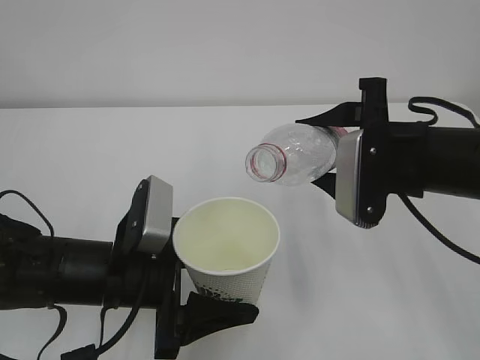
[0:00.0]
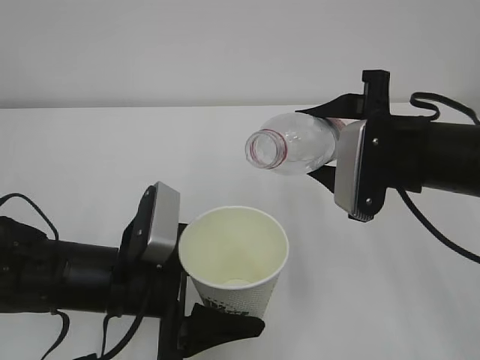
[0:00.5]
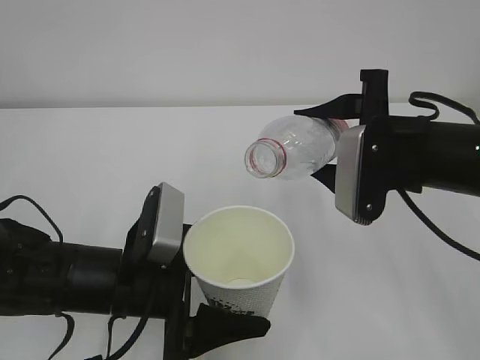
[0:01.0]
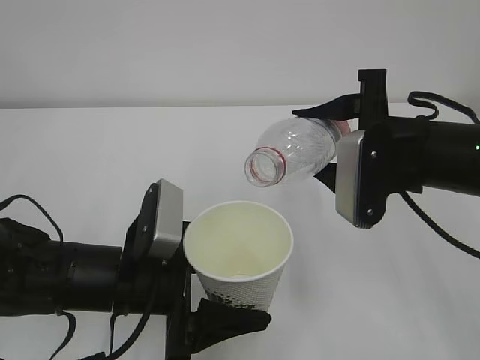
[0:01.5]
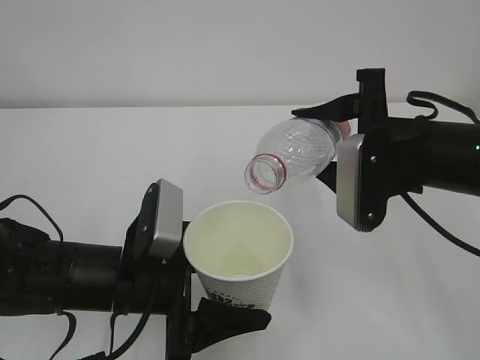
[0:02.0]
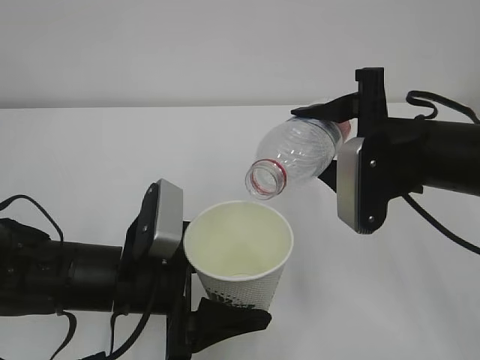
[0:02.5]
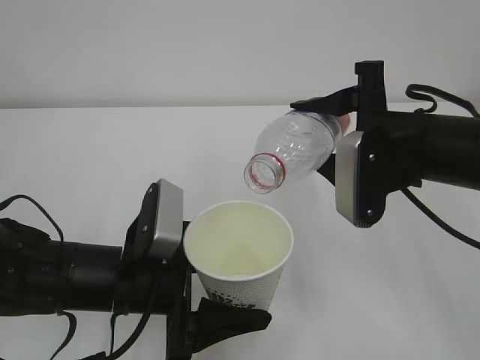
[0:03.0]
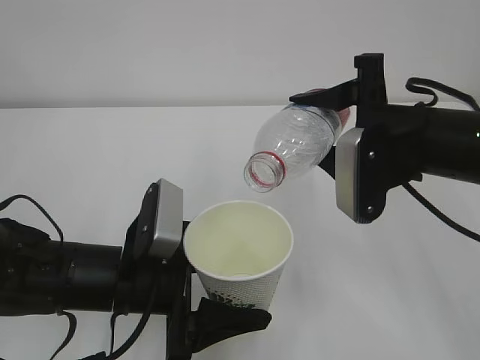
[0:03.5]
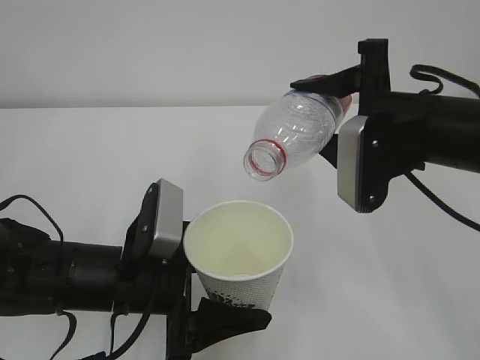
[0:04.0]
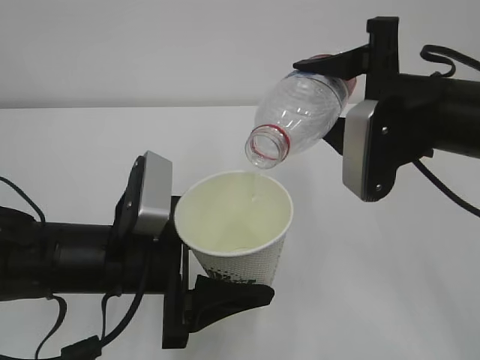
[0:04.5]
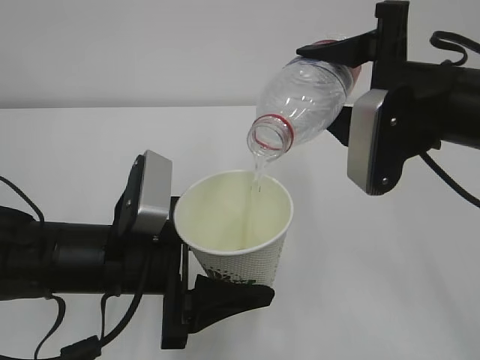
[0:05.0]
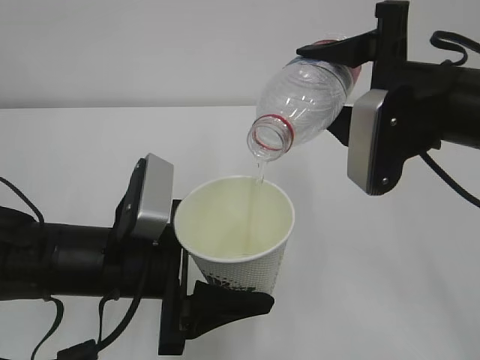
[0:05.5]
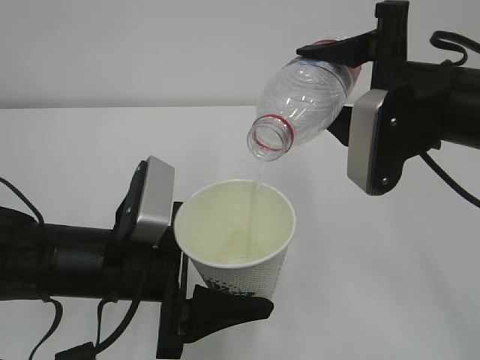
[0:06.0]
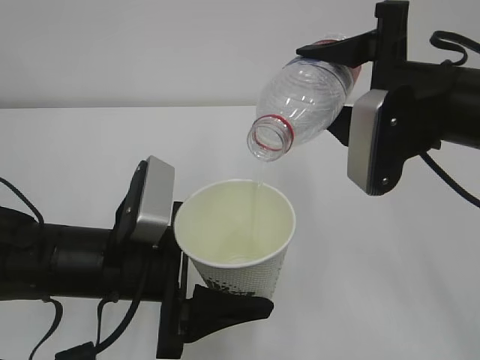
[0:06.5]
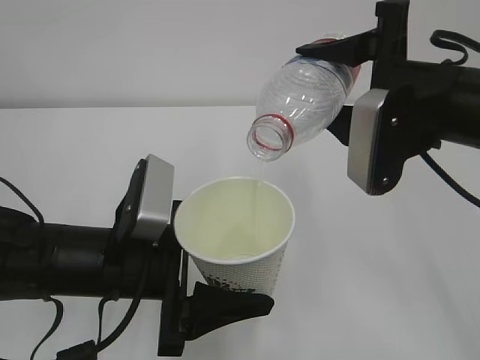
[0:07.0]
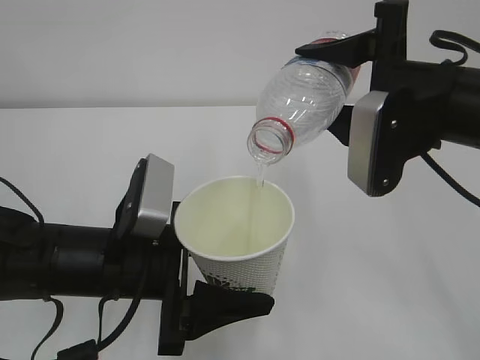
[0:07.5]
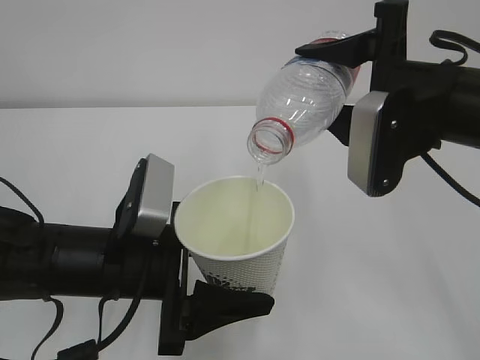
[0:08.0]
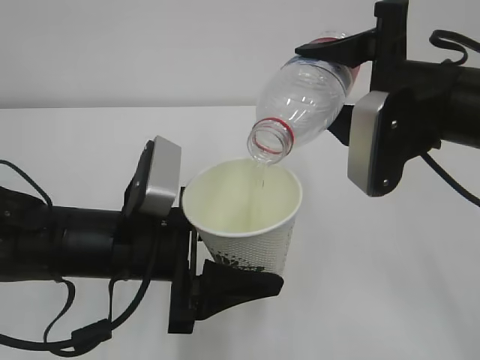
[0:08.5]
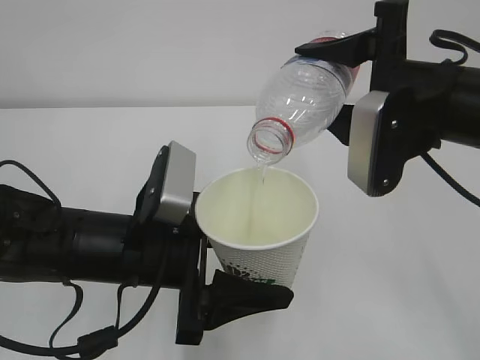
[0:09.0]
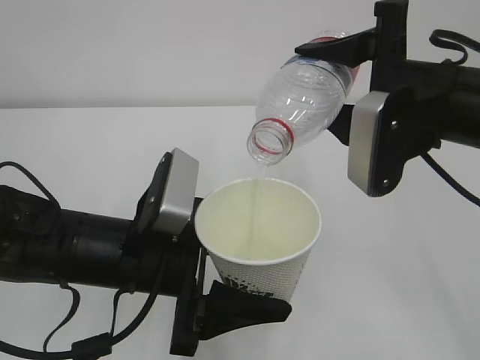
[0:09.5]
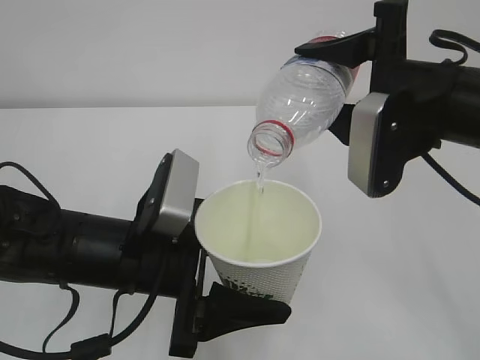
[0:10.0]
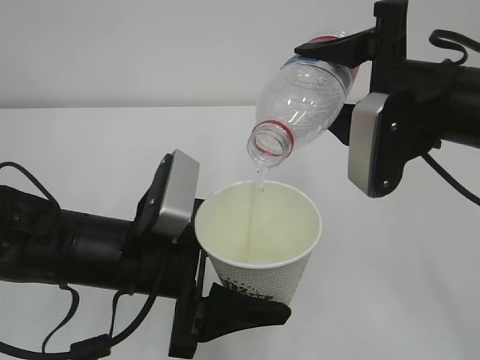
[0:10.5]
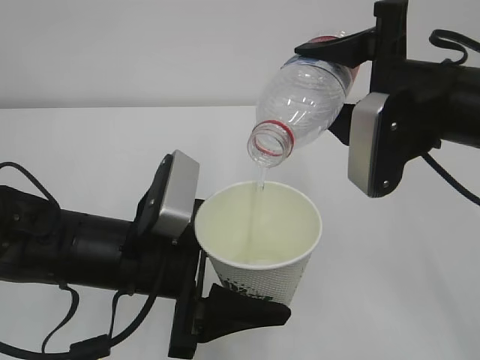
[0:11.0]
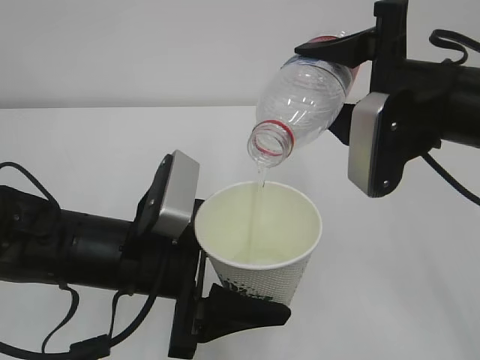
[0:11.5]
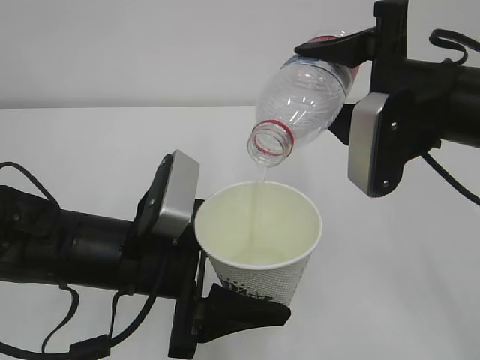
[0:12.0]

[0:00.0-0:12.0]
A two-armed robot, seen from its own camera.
0:00.0 to 0:04.0: The grippers stay close to where they were, moving slightly.
0:06.0 to 0:08.0: Both grippers stay about where they are.
0:08.0 to 0:10.0: The grippers make only small movements.
0:10.0 to 0:12.0: Both grippers stay put.

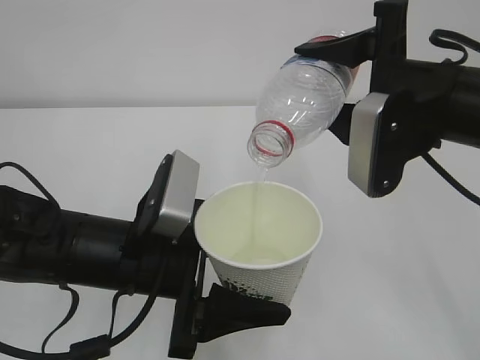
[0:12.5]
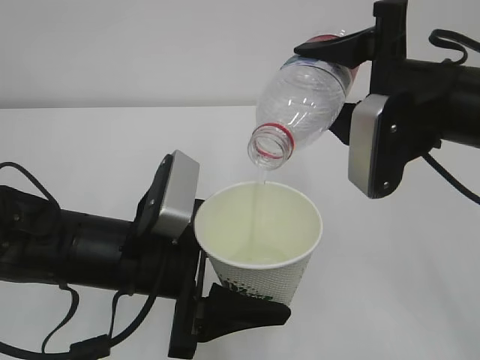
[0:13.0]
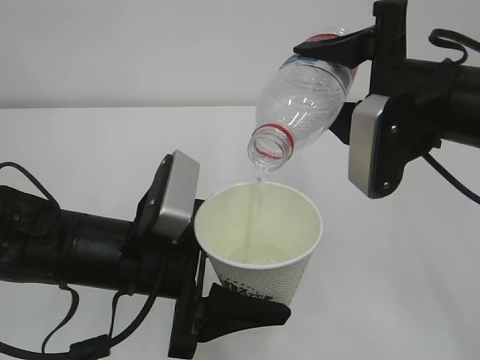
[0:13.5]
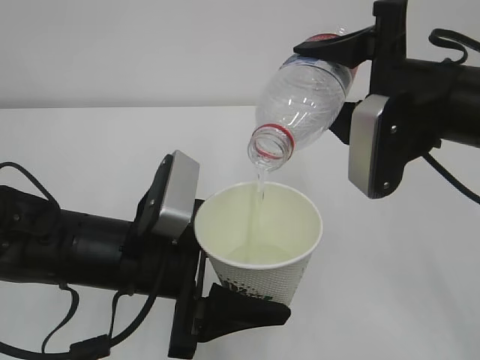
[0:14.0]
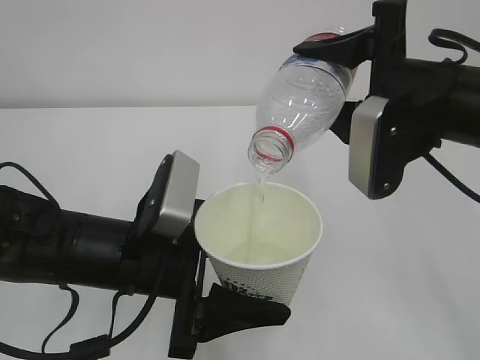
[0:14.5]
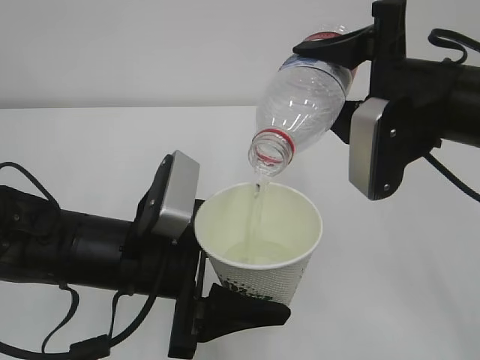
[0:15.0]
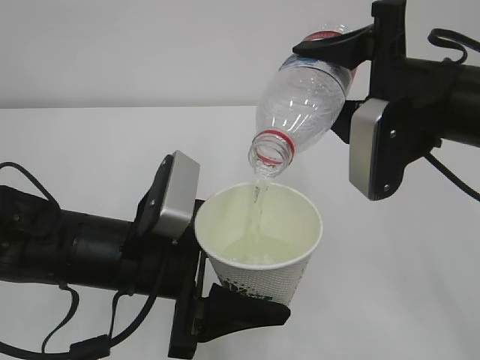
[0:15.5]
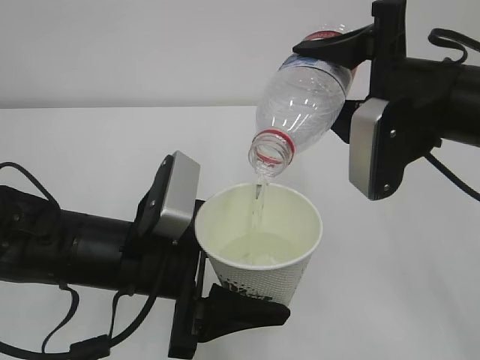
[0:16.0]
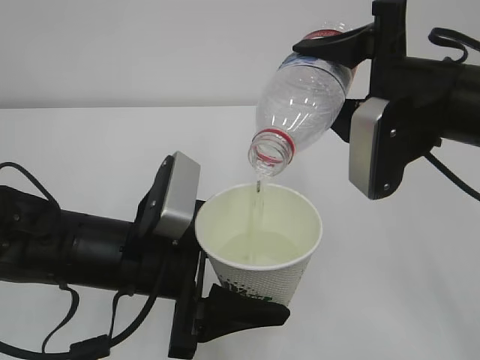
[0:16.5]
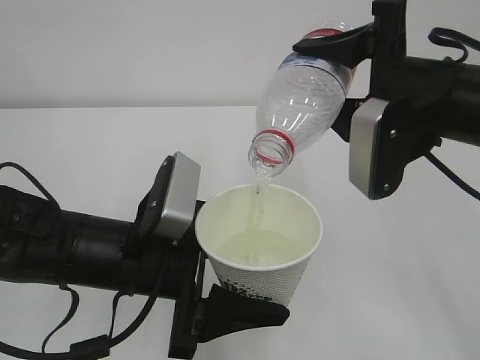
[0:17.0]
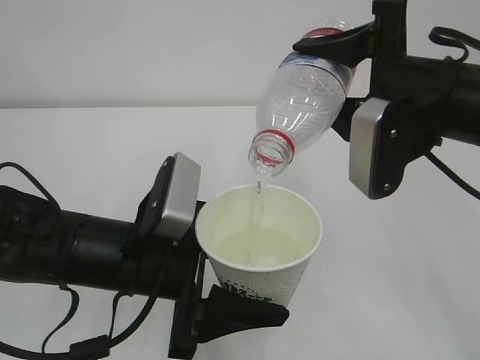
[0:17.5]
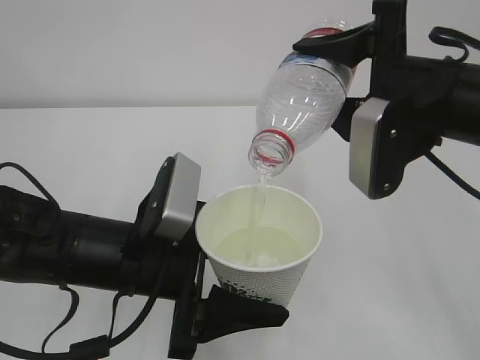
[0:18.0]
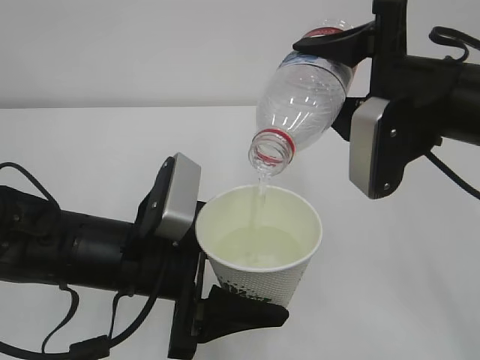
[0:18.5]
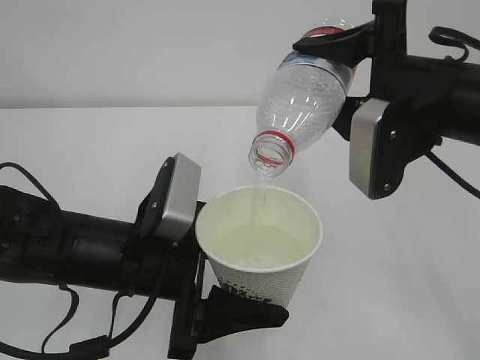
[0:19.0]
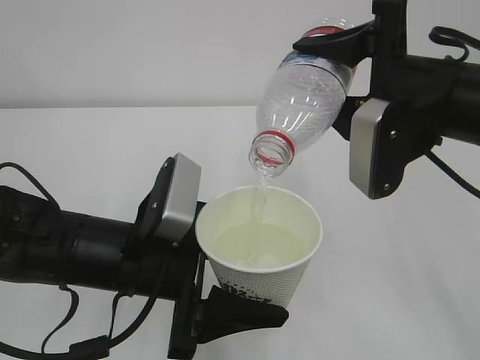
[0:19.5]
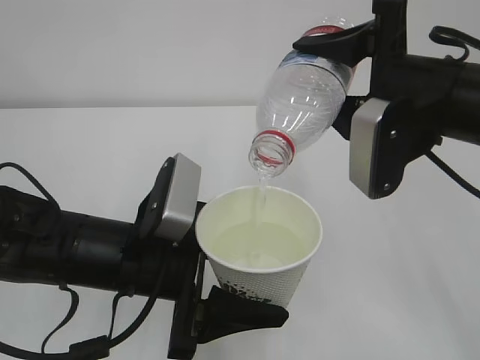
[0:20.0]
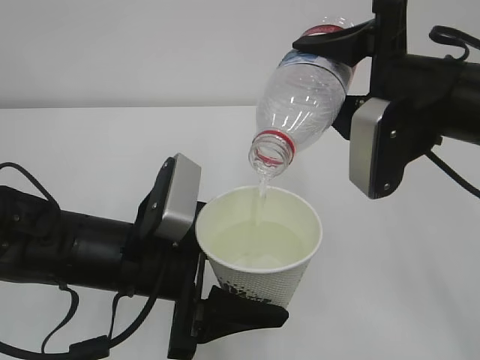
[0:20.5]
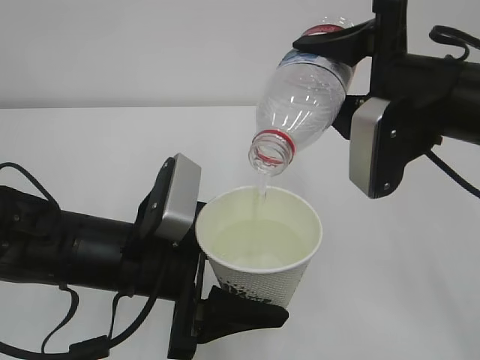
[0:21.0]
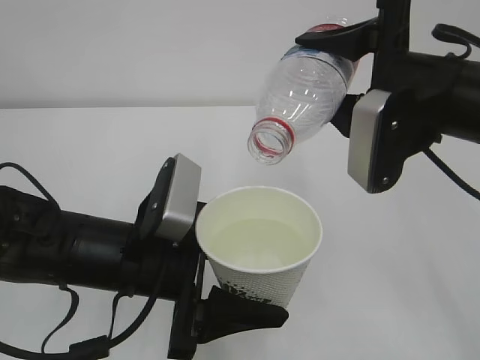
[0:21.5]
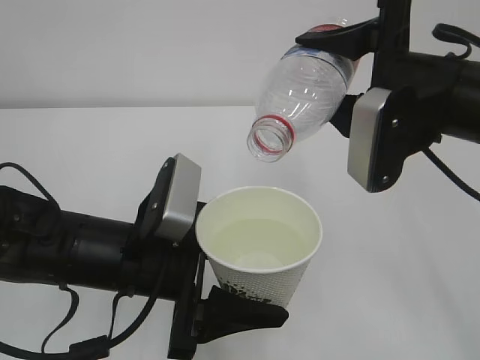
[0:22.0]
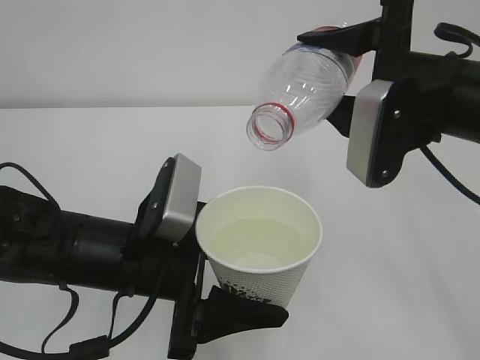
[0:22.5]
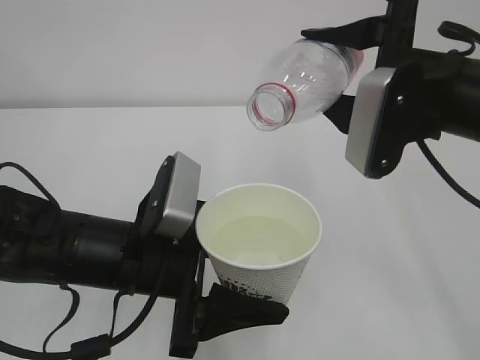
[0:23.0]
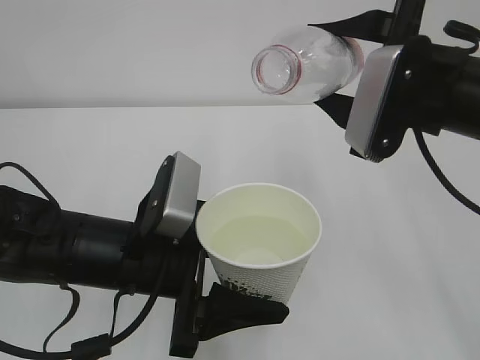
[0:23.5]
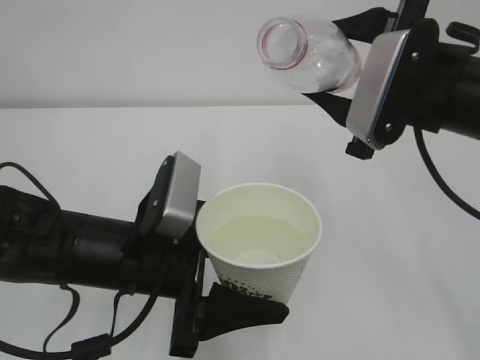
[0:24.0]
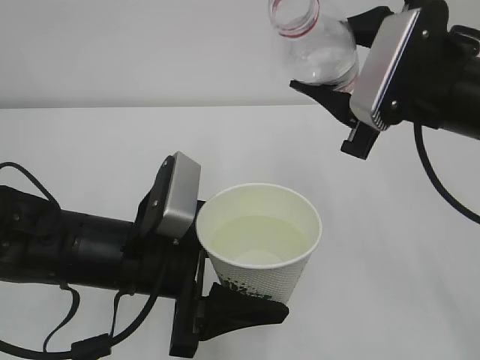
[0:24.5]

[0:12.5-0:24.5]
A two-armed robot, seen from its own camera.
0:12.5 to 0:16.5: Both grippers stay put.
0:16.5 to 0:20.5: Neither gripper changes place.
0:20.5 to 0:22.5: The grippers move only a little.

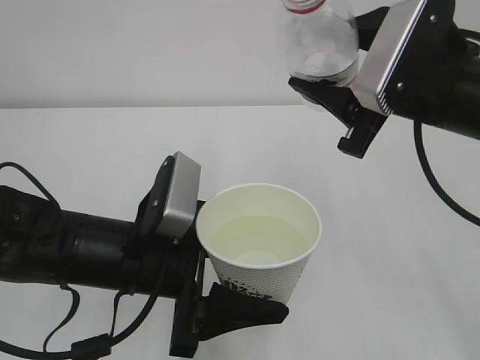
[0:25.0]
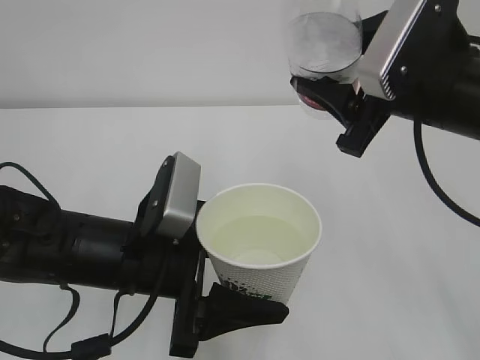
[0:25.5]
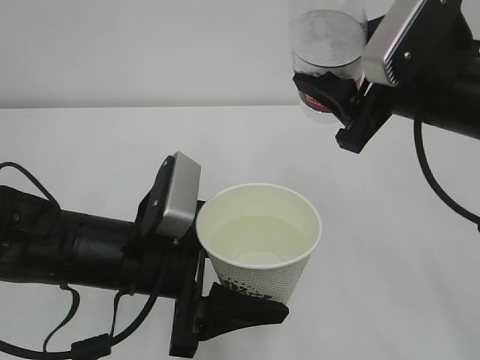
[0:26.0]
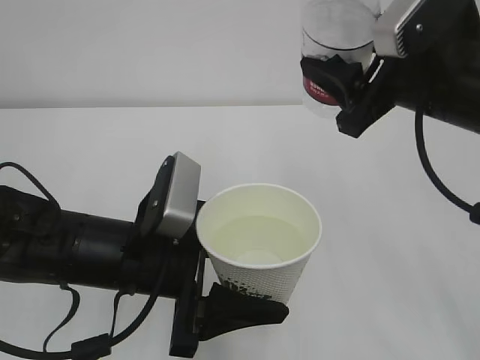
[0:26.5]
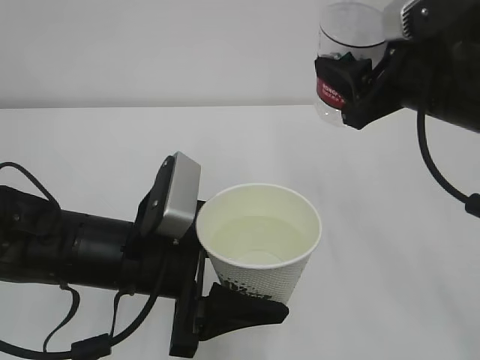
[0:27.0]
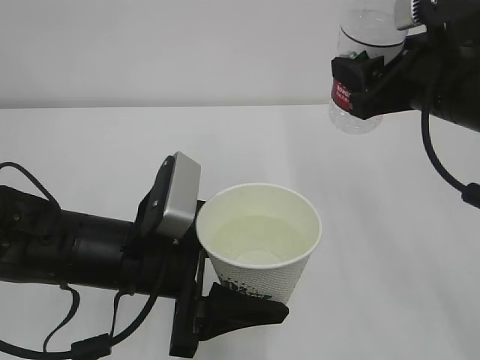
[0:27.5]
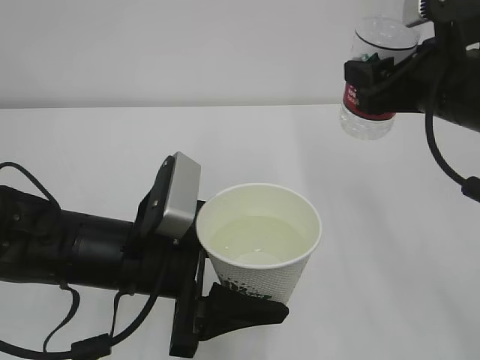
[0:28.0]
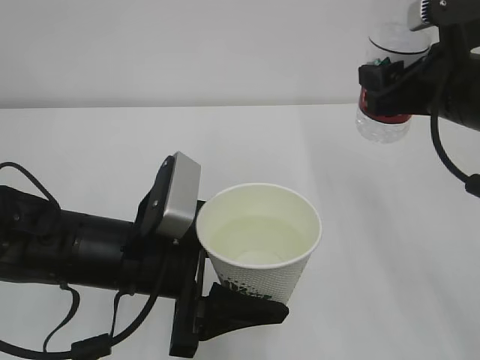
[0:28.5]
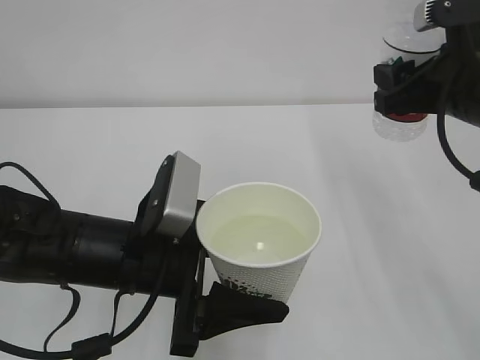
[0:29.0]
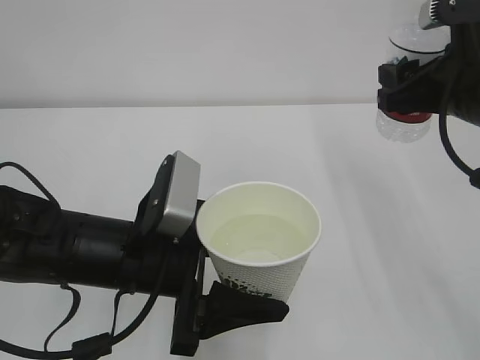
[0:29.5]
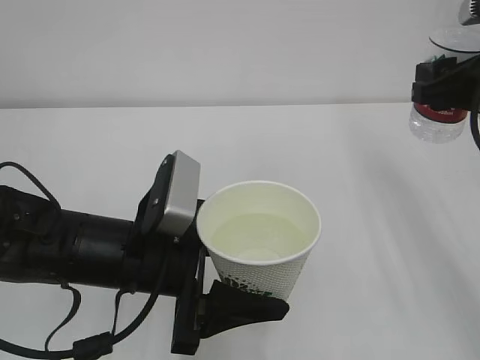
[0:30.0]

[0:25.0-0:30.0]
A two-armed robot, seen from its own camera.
0:27.5 to 0:30.0: The right gripper shifts about 5 cm to the right.
